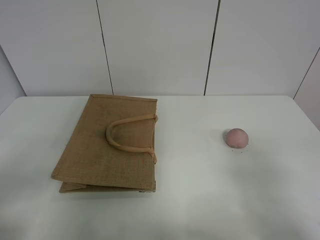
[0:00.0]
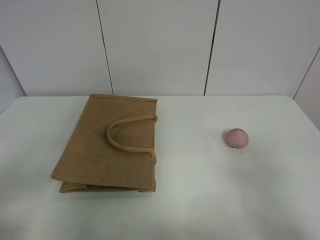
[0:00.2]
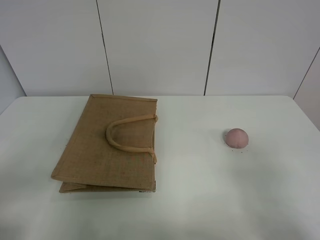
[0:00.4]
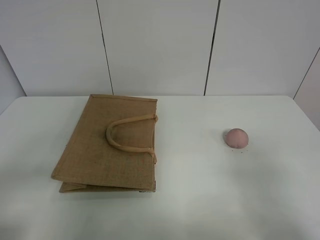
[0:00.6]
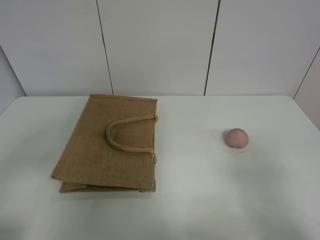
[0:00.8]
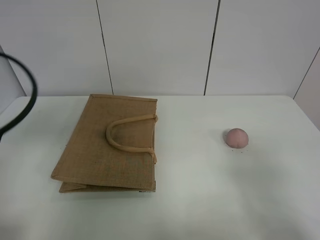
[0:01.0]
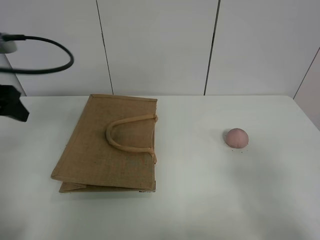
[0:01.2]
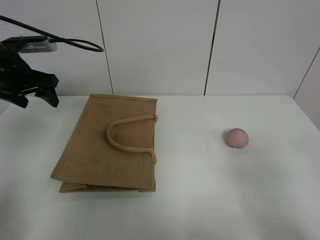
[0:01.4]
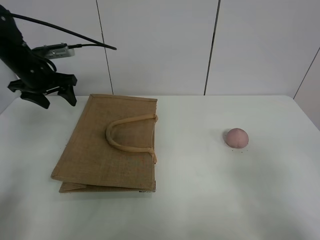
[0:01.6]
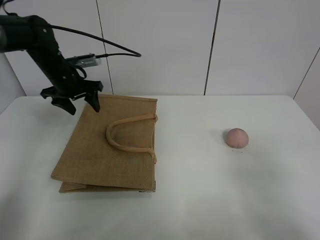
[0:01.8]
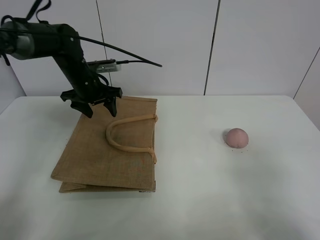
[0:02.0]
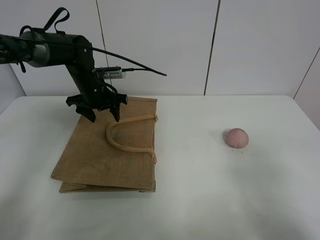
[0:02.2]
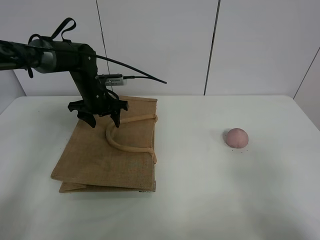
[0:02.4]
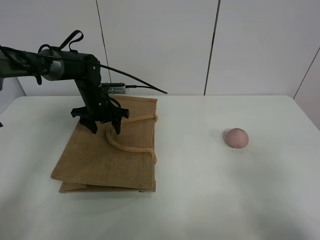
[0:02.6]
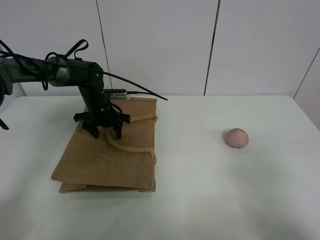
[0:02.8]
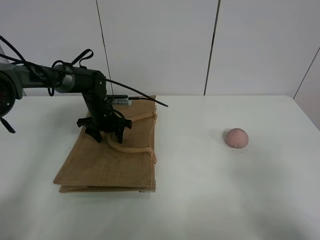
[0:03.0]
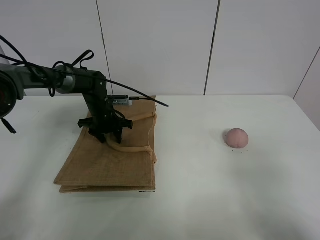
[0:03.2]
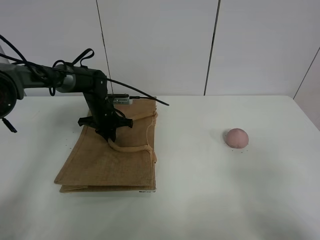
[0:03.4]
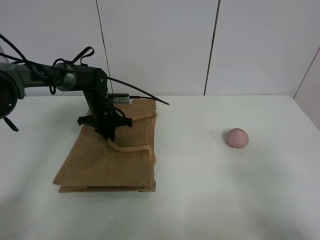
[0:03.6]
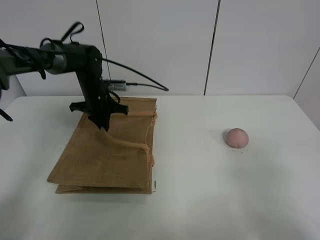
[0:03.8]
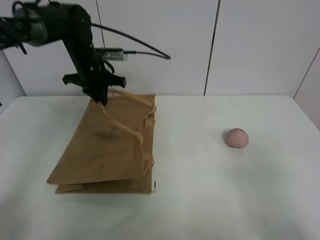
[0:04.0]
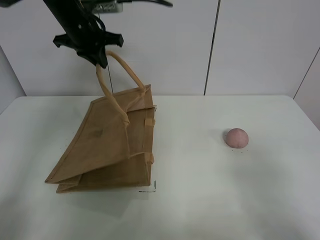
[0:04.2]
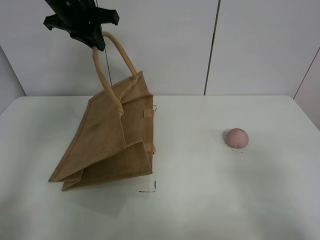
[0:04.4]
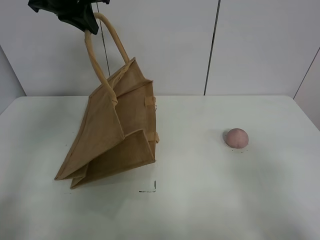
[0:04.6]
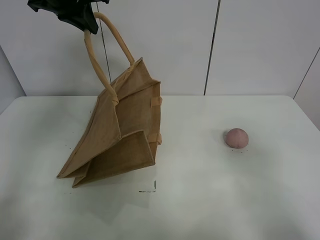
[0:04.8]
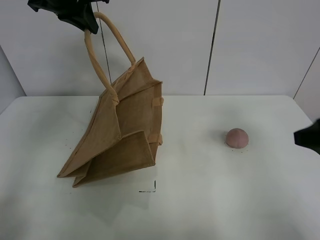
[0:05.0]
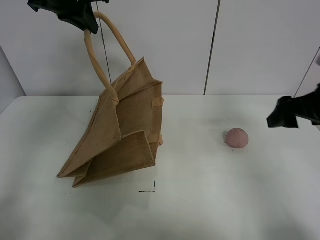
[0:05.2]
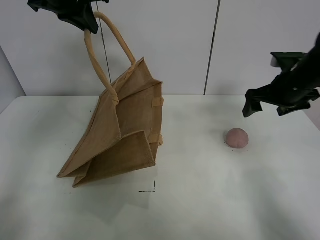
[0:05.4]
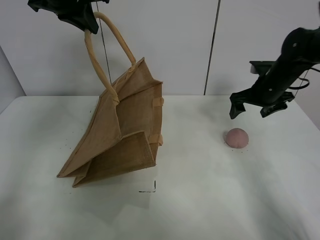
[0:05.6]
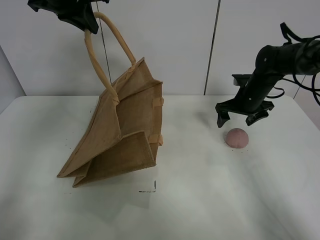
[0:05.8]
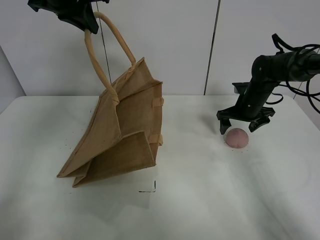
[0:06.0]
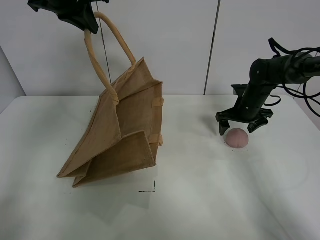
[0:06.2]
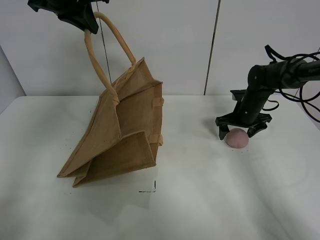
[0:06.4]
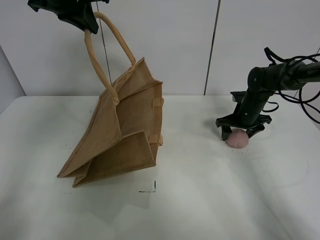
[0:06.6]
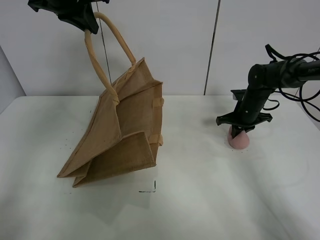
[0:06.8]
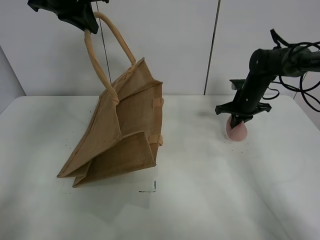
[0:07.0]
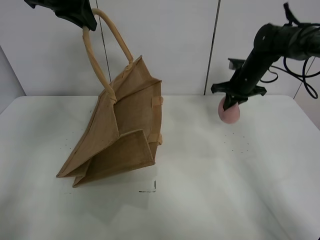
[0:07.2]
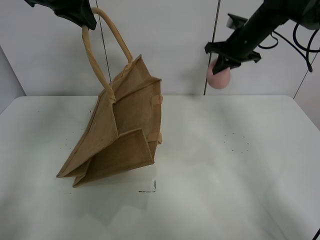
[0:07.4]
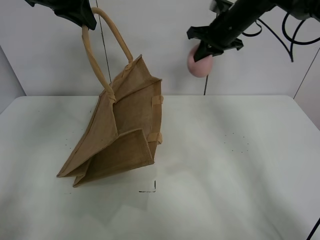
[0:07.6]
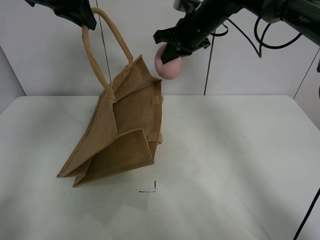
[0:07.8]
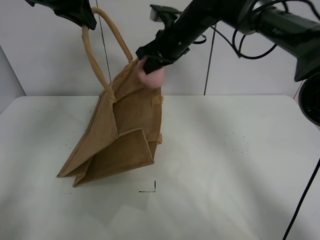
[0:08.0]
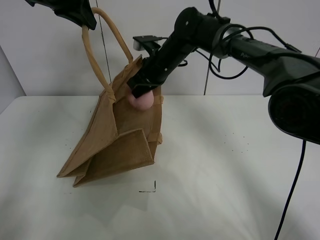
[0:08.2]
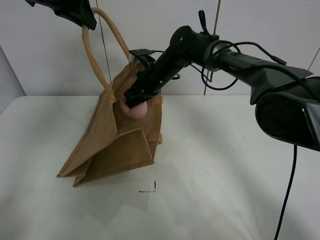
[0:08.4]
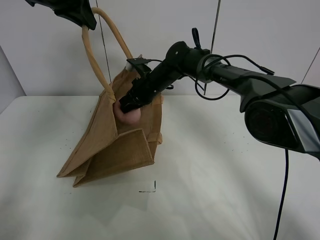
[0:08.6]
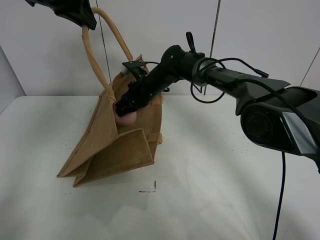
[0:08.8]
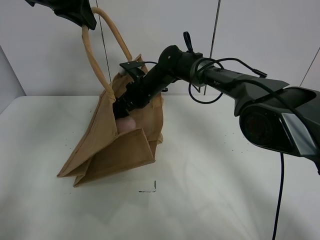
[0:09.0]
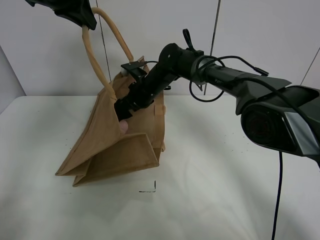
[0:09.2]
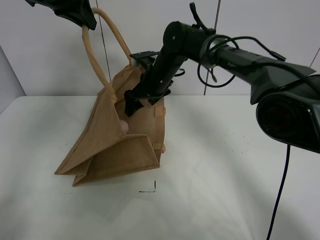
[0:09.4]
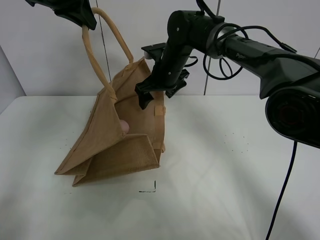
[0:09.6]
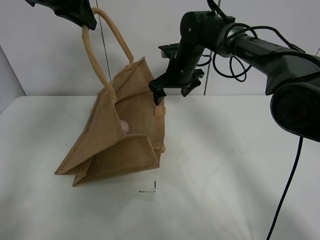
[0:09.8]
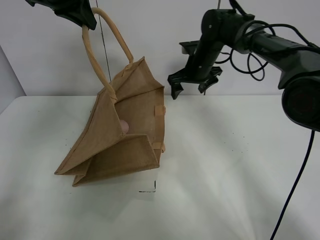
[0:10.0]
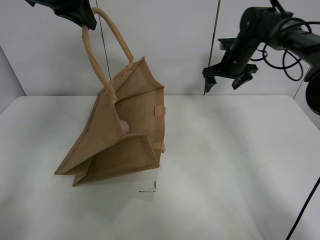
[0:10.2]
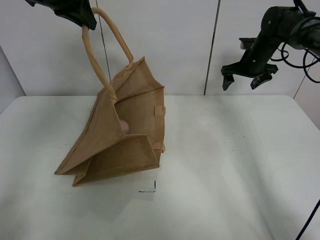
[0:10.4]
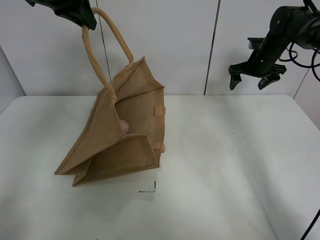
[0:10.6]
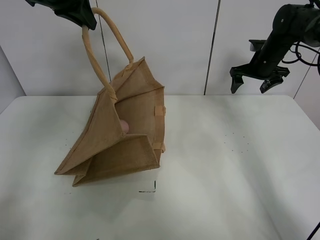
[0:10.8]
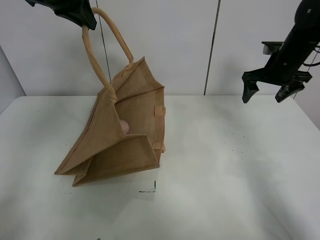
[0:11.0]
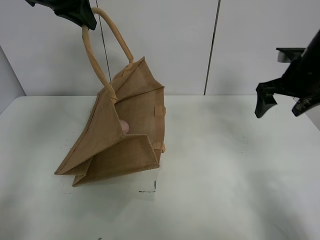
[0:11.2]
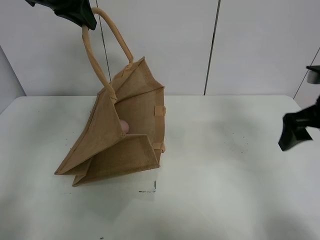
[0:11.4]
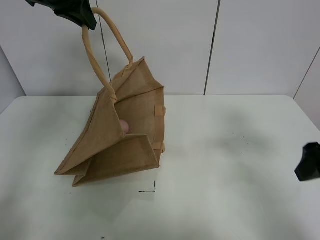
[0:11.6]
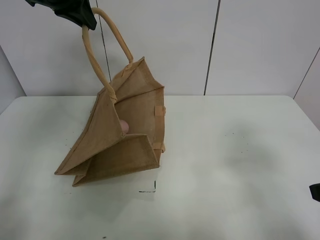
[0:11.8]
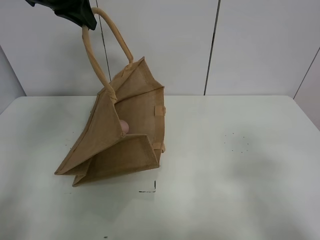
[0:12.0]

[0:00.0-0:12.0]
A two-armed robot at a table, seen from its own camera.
Task of the whole recording: open the brown linen bag and put the peach in the bag.
Step, 0:00.0 to 0:04.6: Lift the handbag with left gripper.
Step, 0:04.8 to 0:06.8: Grasp the peach with right gripper.
Step, 0:07.0 to 0:09.8: Place the peach in the handbag with right gripper.
0:01.6 to 0:03.0: The left gripper moves downward and to the right, about 20 cm.
0:03.0 to 0:04.4: The left gripper shifts about 25 cm upward, and closes its fingers.
0:04.4 to 0:06.0: The right gripper shifts about 40 cm forward; the left gripper shifts about 5 cm upward.
0:06.0 to 0:07.6: The right gripper heads upward, covering roughly 15 cm, and closes.
0:07.6 to 0:09.0: The right gripper heads to the left and downward, covering about 25 cm, and opens up.
0:09.0 to 0:10.4: The right gripper is displaced to the right by roughly 25 cm.
0:10.4 to 0:12.0: The right gripper heads backward, covering some 40 cm.

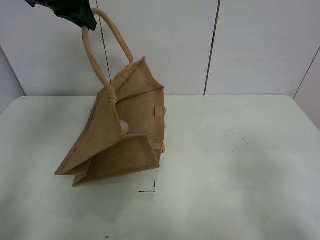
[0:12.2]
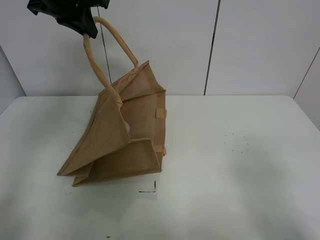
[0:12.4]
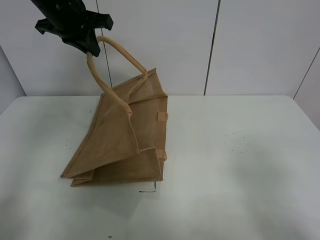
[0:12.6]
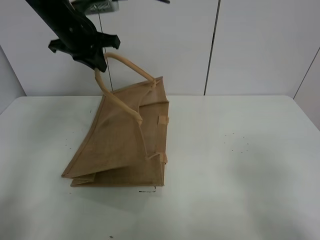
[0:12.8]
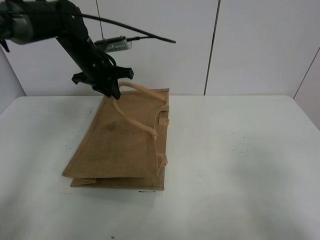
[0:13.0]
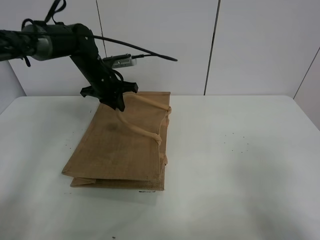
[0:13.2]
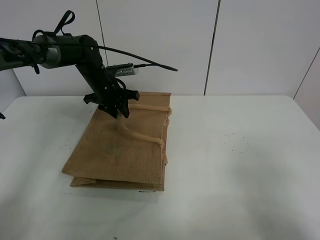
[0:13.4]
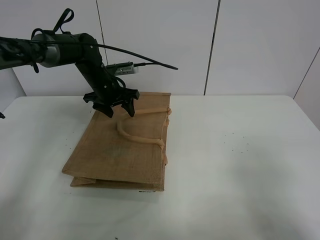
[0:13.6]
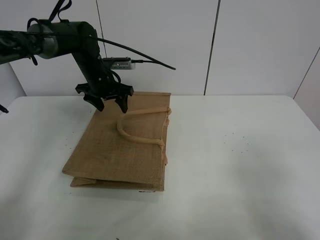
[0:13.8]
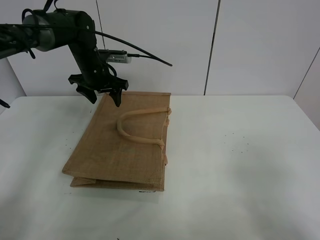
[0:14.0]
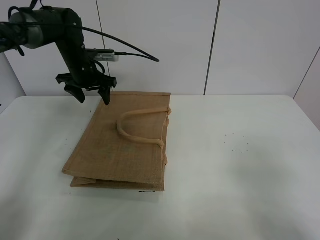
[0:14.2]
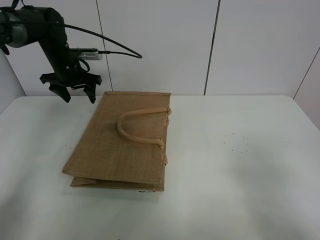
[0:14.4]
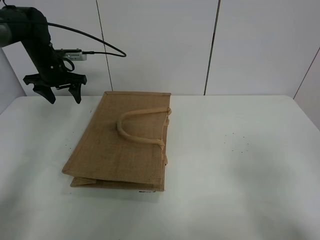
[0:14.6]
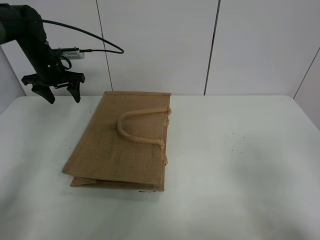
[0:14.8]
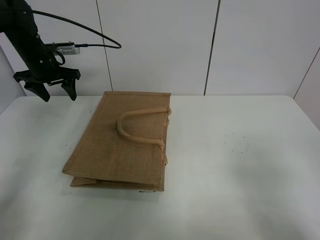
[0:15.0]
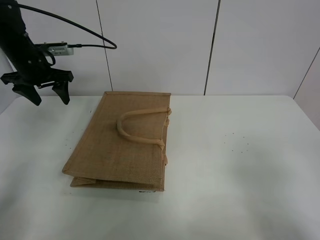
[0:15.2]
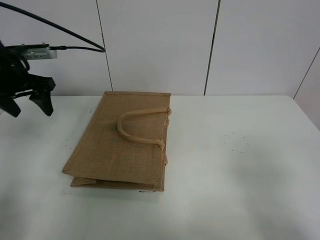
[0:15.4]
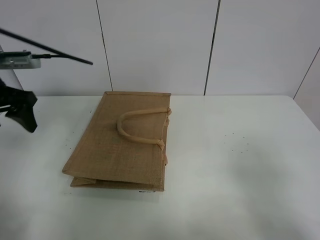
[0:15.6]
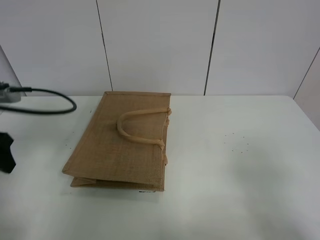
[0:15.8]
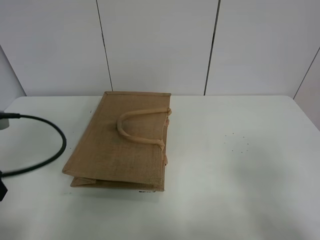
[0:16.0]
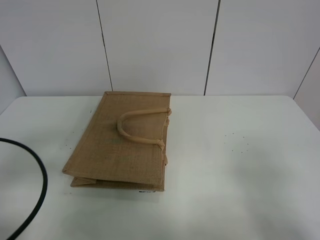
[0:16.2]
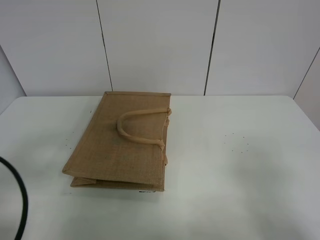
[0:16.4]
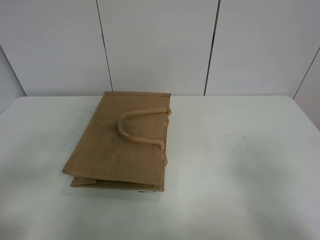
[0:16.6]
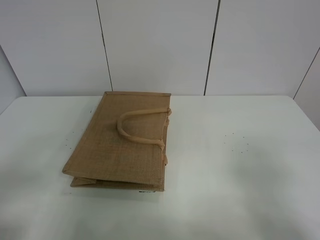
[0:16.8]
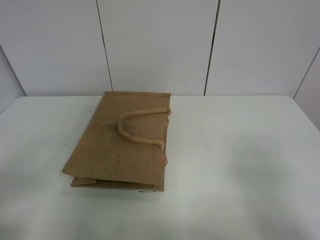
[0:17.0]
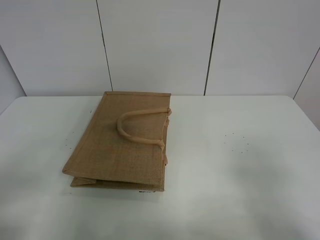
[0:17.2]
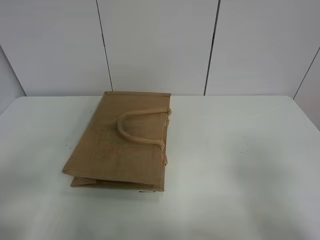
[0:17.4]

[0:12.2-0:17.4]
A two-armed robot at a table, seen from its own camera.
Task of the whole recording: open the brown linen bag and put the peach in the bag.
Step, 0:12.2 to 0:14.2: Put down the handbag with left grippe.
0:12.2 to 0:14.0: The left gripper travels downward by approximately 20 cm, and opens its fingers.
0:14.0 to 0:15.6: The left gripper is displaced backward, to the left and upward by approximately 20 cm.
0:15.6 to 0:17.4: The left gripper shifts about 30 cm backward.

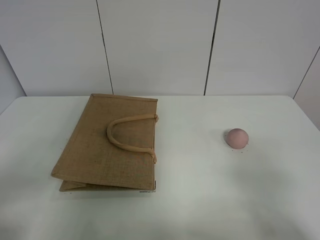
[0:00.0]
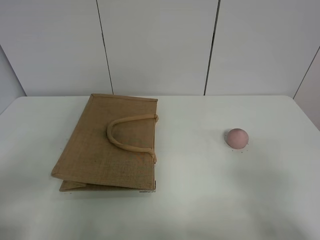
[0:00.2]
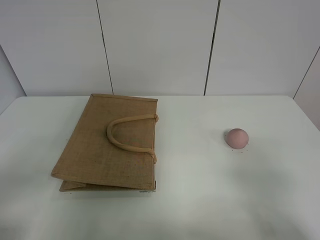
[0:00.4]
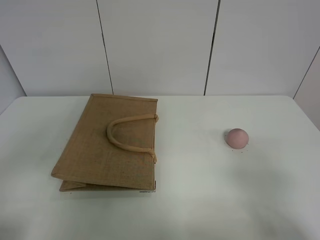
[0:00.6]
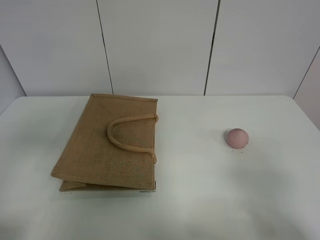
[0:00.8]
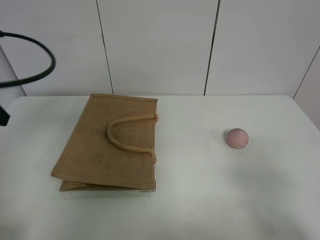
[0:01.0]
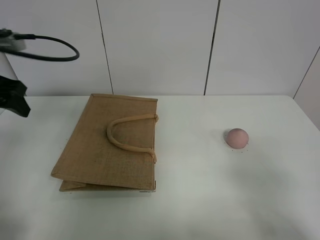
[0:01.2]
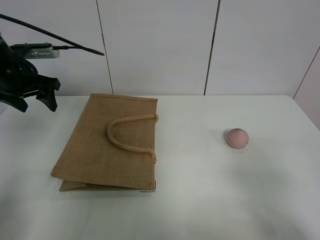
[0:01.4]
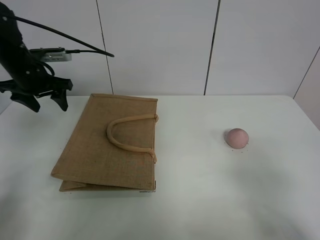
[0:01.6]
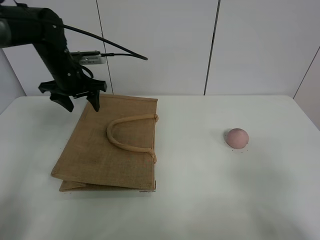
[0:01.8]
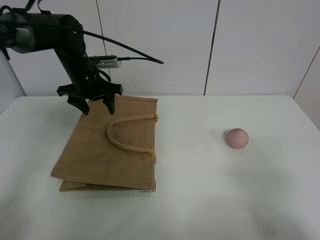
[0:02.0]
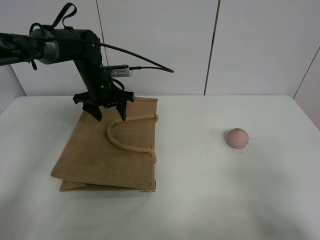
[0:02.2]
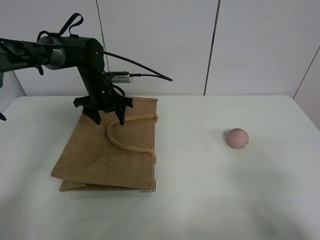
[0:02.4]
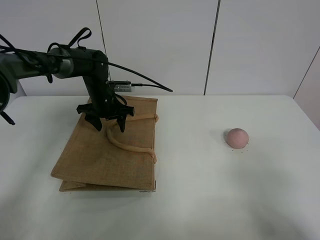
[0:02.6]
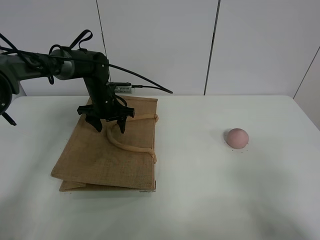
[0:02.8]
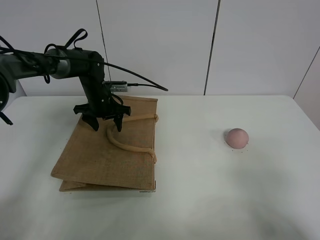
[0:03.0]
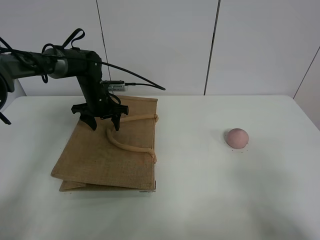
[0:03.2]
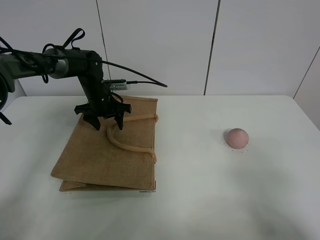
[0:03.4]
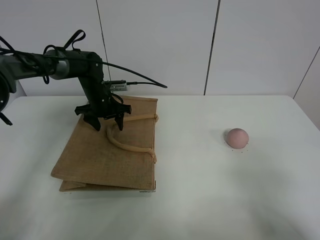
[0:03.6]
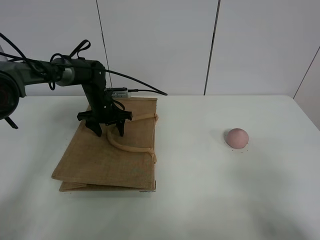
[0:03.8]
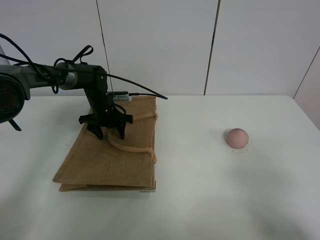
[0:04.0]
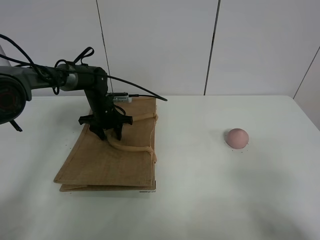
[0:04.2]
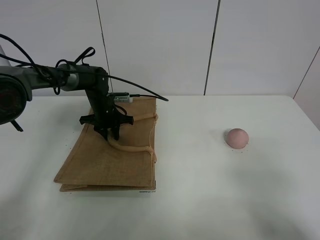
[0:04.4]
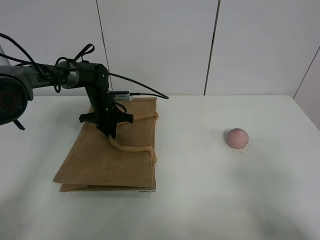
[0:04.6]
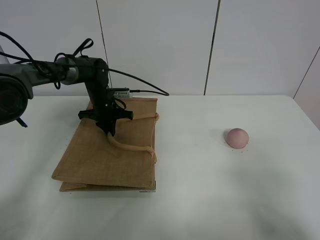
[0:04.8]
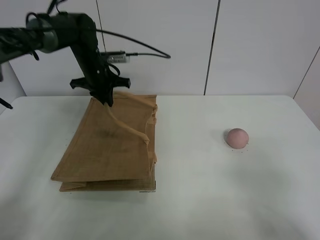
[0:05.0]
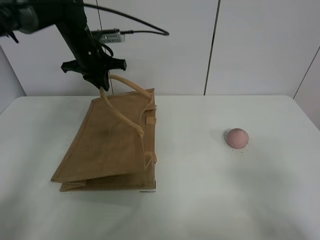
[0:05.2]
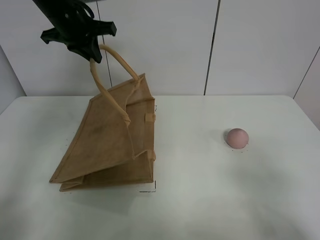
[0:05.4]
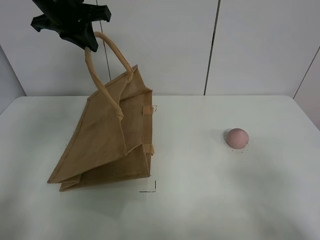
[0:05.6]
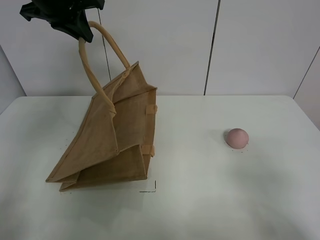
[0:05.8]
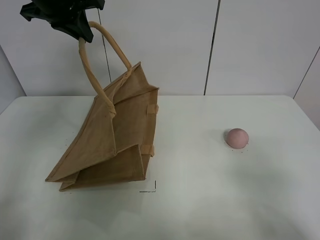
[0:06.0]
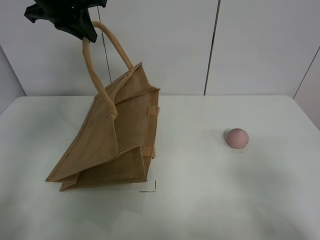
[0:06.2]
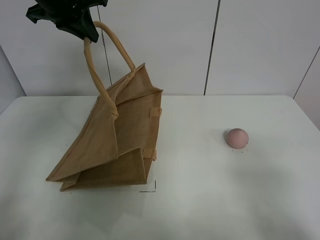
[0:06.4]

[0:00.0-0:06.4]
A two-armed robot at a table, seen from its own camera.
Task of the whole recording: open the brown linen bag and put the peach in the bag.
Step, 0:00.0 to 0:06.2: Lift the handbag with left gripper.
0:00.0 to 0:01.6: The left gripper moves forward, about 40 cm.
0:01.6 to 0:03.2: The left gripper is displaced downward, to the right and forward by some 15 cm.
0:03.2 to 0:04.8: The left gripper closes.
0:04.8 to 0:06.4: The left gripper is displaced upward by roughly 30 cm.
